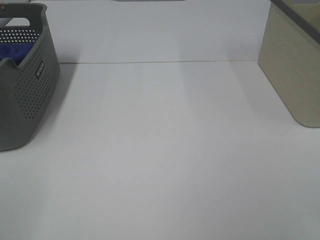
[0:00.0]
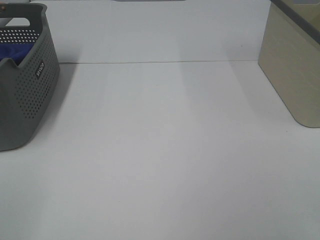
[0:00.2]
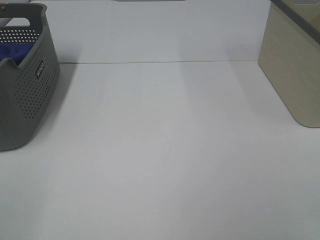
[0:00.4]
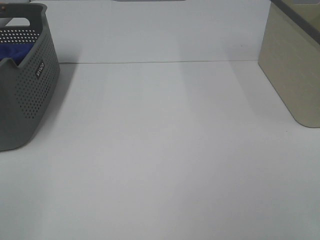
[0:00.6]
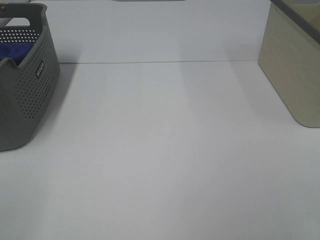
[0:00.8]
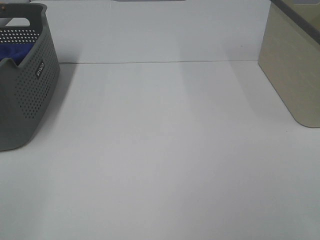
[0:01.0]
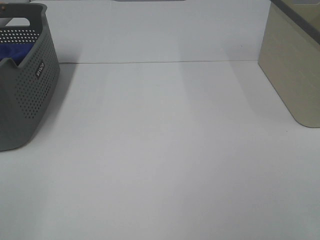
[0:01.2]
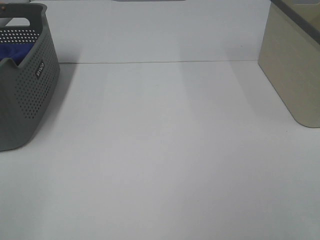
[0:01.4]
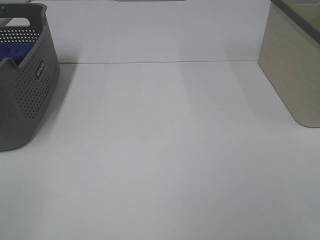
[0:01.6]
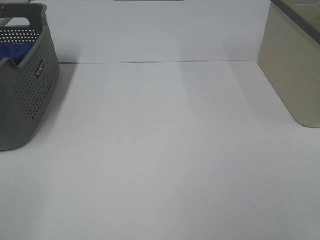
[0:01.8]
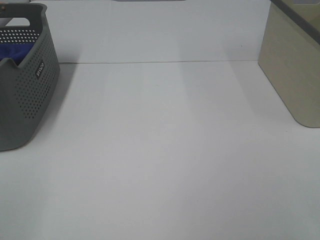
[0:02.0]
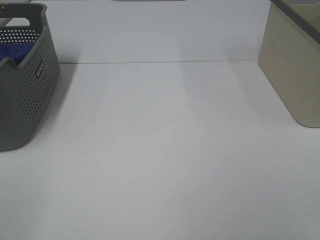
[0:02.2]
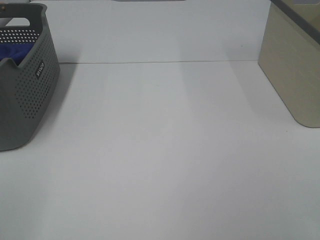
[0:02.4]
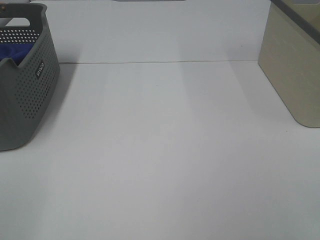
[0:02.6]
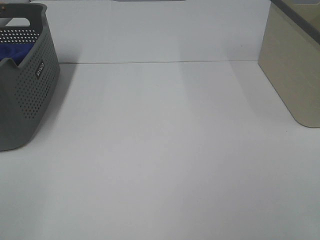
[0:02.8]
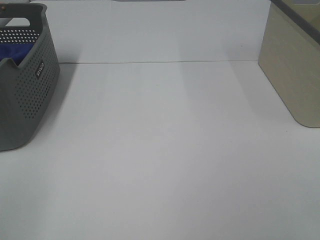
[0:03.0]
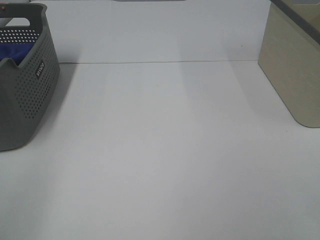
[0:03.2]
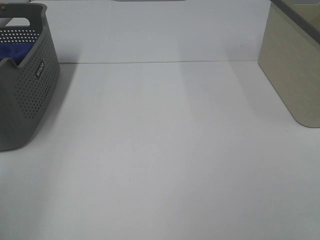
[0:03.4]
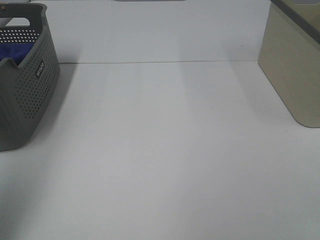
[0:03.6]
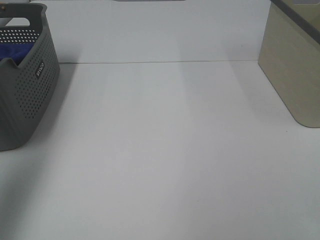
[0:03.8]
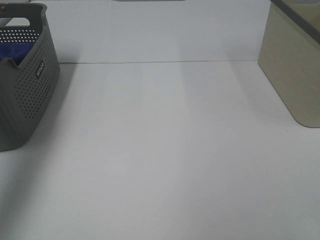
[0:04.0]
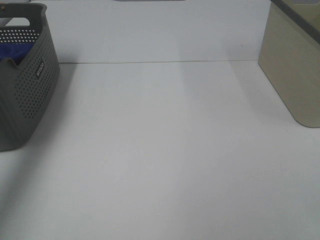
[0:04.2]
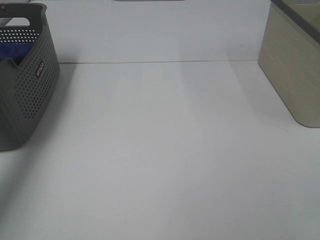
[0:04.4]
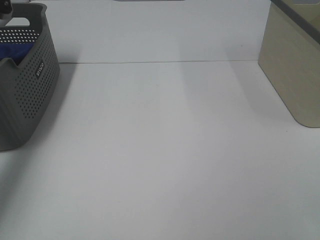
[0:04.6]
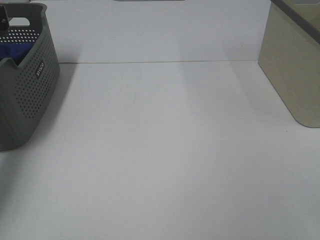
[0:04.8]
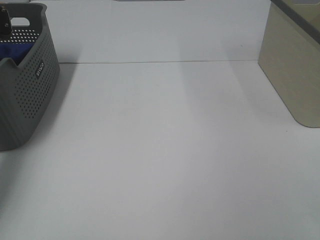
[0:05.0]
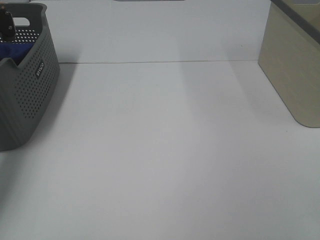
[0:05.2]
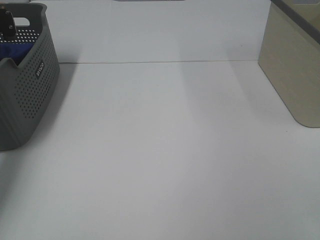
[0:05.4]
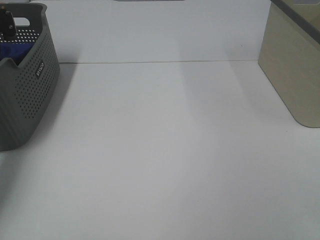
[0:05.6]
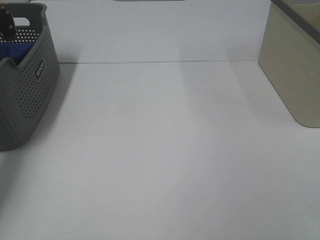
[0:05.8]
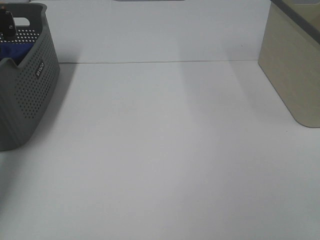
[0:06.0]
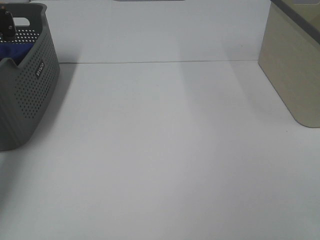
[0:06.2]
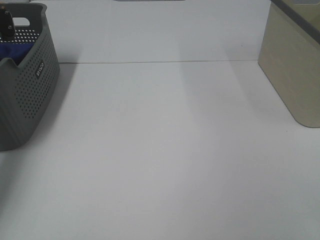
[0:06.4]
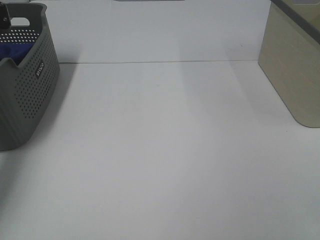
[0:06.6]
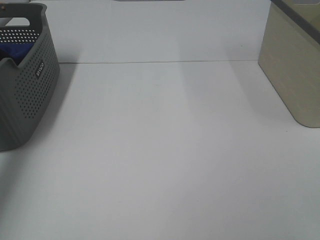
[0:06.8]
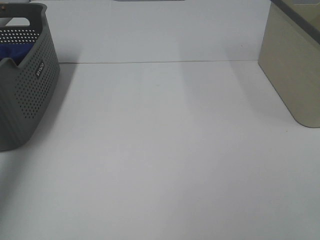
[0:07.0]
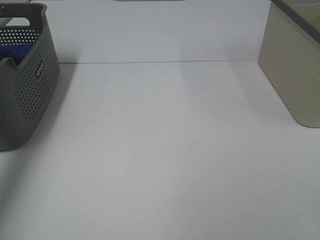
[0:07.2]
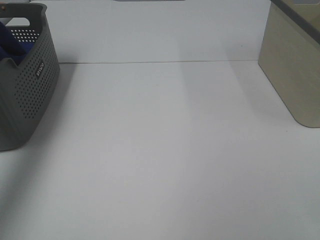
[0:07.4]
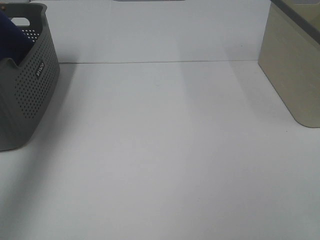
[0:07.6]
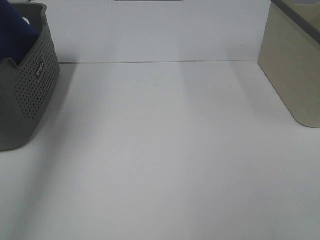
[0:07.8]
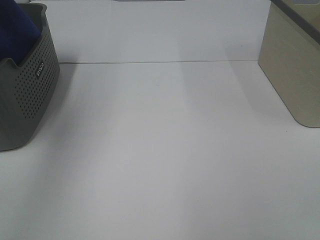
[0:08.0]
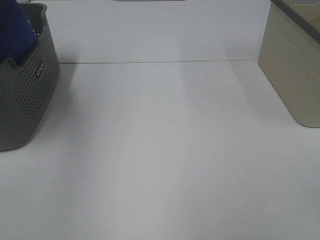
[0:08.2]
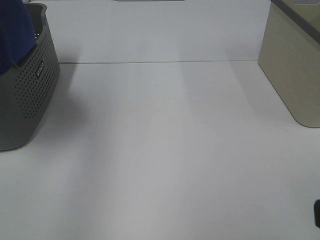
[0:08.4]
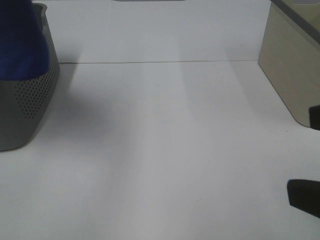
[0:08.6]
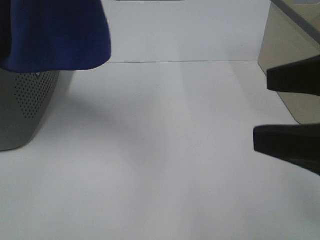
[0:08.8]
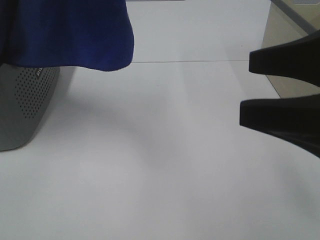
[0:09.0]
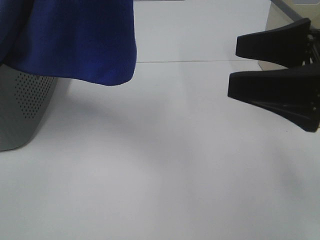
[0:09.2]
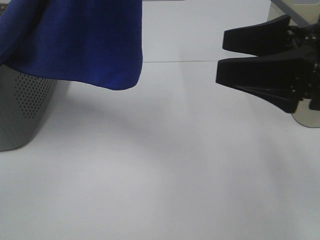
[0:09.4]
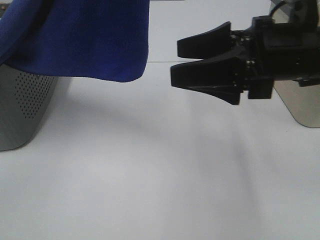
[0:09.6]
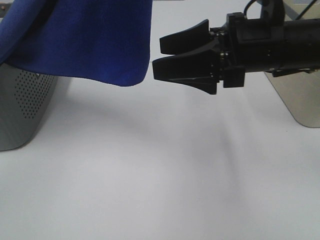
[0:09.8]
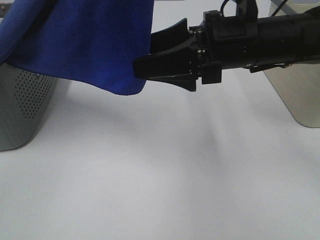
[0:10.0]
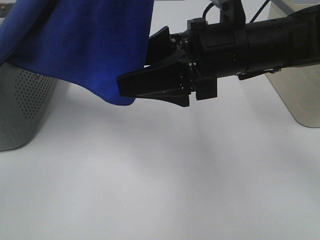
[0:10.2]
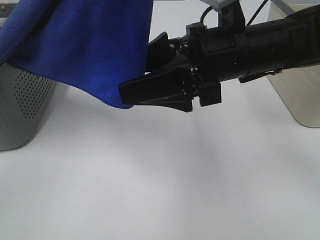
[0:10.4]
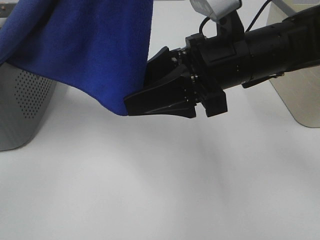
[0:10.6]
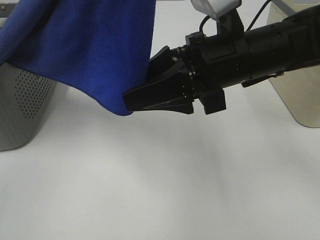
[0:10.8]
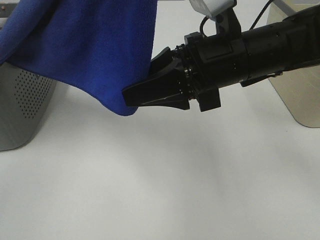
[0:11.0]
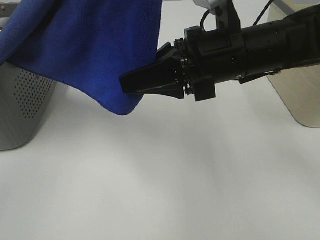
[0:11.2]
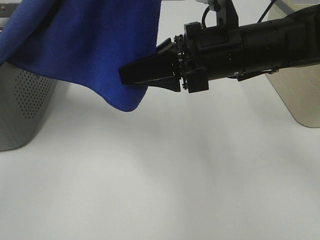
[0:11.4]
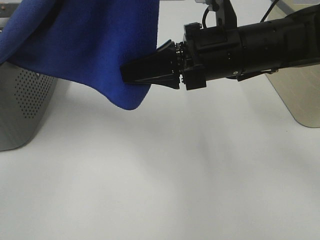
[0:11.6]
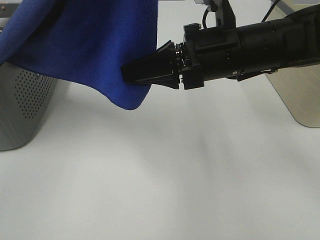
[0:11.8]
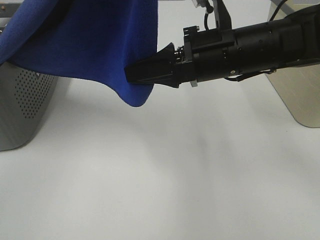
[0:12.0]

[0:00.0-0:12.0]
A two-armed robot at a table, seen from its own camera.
Task of the whole recording: Remove the towel and place it.
0:00.0 to 0:01.6: The two grippers keep their place.
0:03.0 to 0:04.4: The left gripper travels forward by about 40 cm.
0:04.4 to 0:06.0: The left gripper is displaced downward by about 10 cm, and closes up.
0:06.0 to 0:07.6: The left gripper travels upward and backward by approximately 30 cm.
0:07.6 to 0:09.0: The right gripper goes about 15 cm forward; the left gripper shifts roughly 25 cm to the right and backward.
0:09.0 to 0:10.4: The left gripper is displaced to the right by about 5 cm; the right gripper moves forward and to the left, about 15 cm.
0:10.4 to 0:12.0: The right gripper closes its fingers.

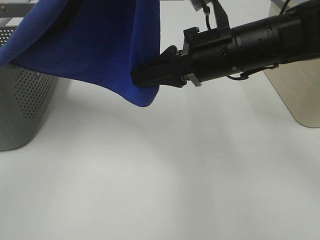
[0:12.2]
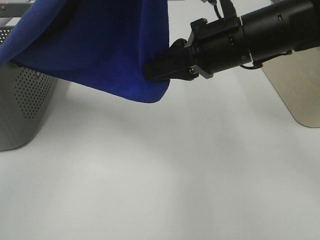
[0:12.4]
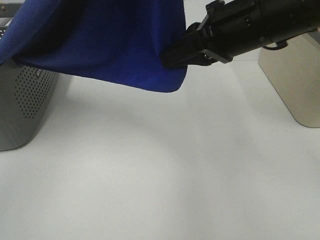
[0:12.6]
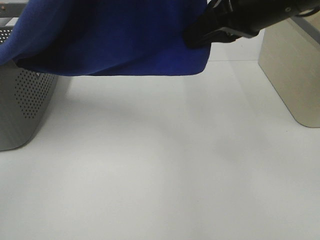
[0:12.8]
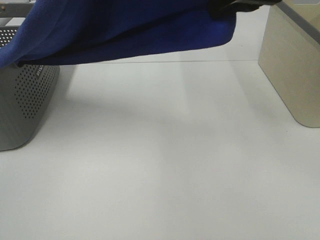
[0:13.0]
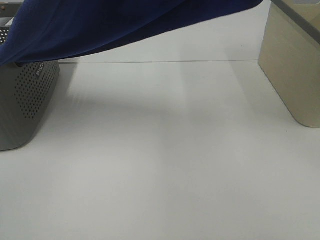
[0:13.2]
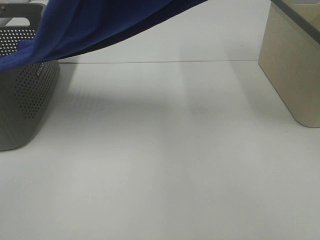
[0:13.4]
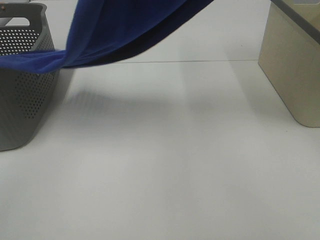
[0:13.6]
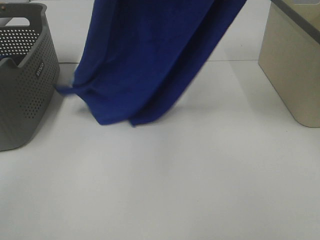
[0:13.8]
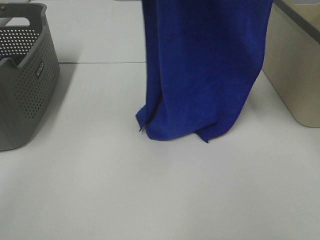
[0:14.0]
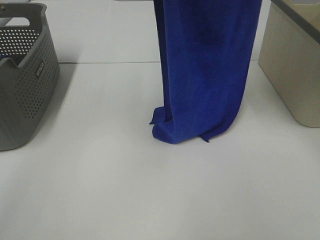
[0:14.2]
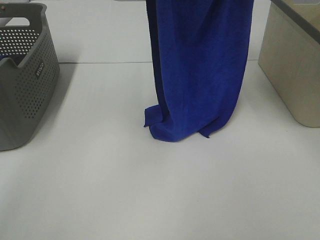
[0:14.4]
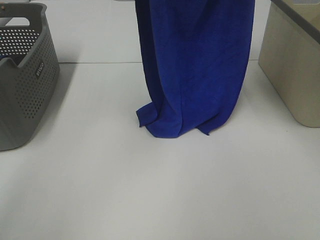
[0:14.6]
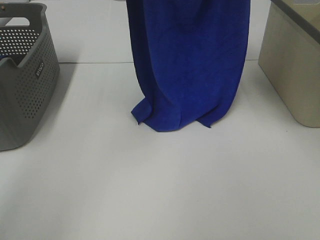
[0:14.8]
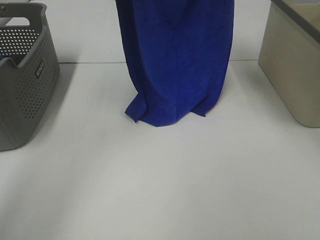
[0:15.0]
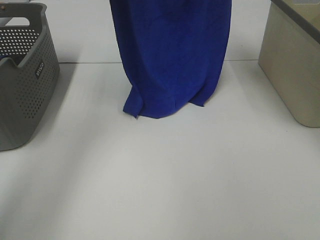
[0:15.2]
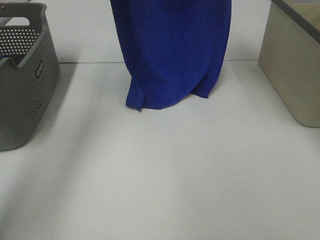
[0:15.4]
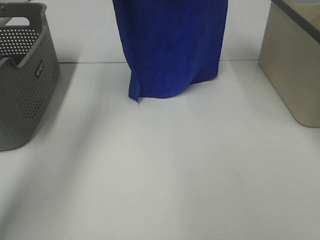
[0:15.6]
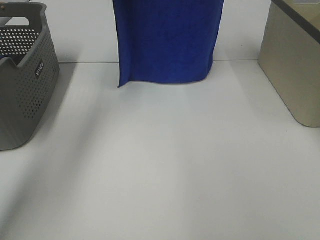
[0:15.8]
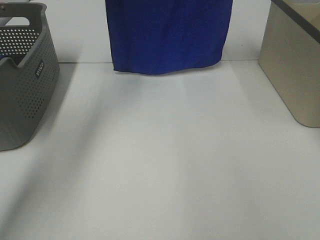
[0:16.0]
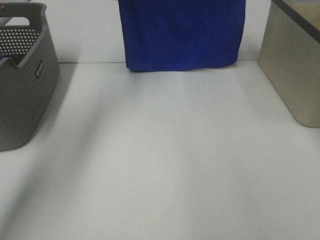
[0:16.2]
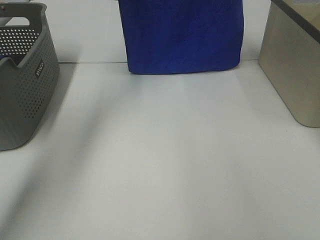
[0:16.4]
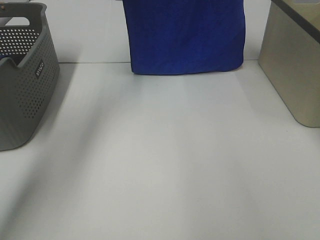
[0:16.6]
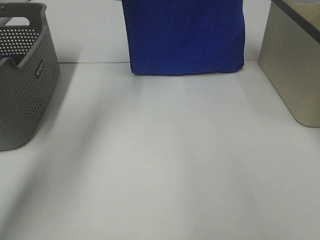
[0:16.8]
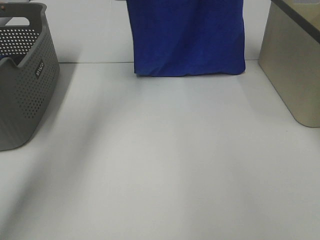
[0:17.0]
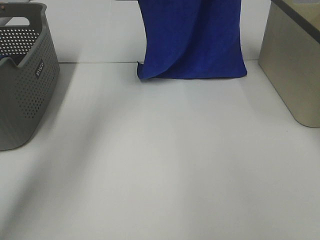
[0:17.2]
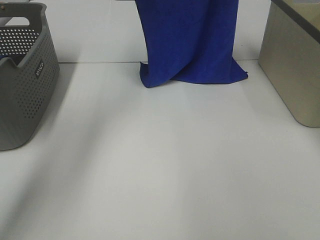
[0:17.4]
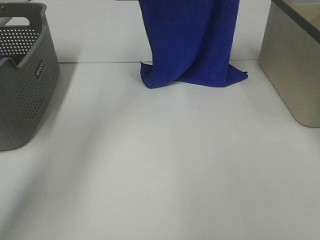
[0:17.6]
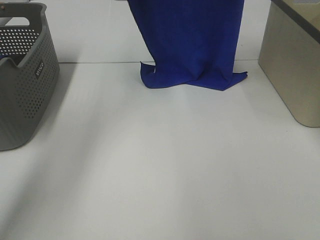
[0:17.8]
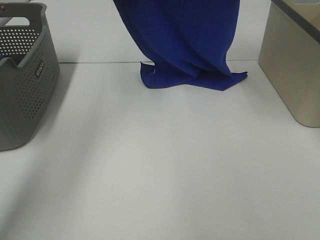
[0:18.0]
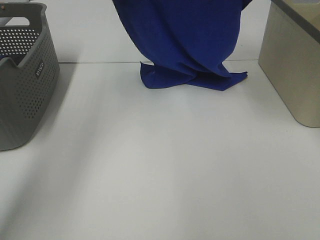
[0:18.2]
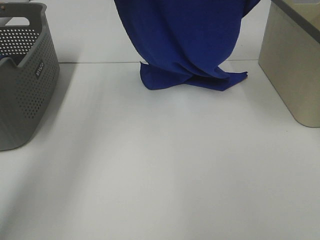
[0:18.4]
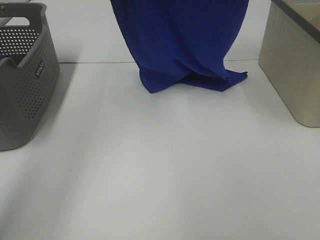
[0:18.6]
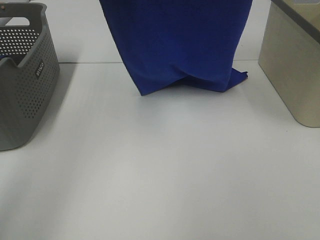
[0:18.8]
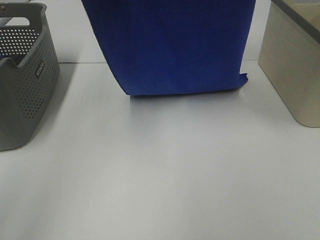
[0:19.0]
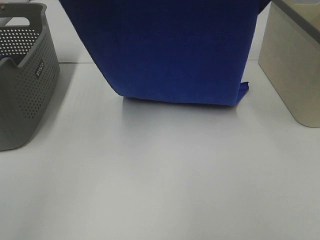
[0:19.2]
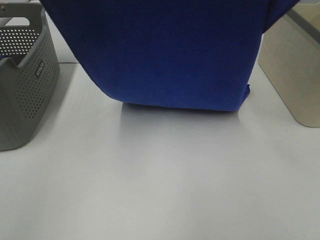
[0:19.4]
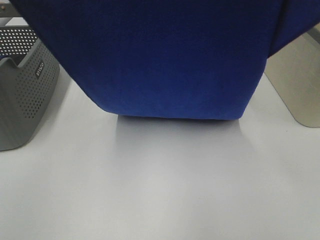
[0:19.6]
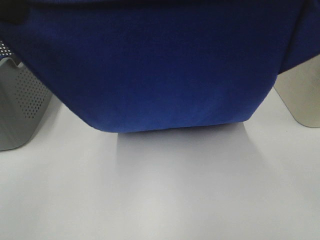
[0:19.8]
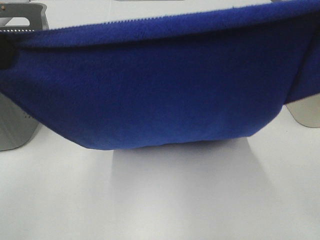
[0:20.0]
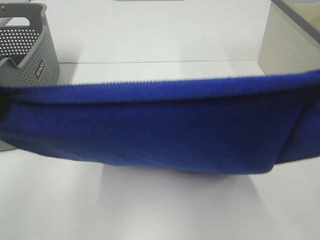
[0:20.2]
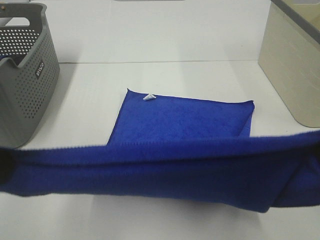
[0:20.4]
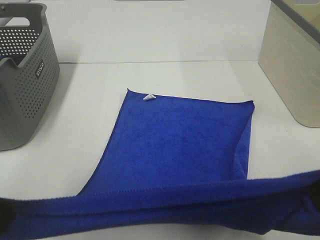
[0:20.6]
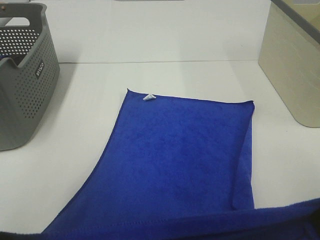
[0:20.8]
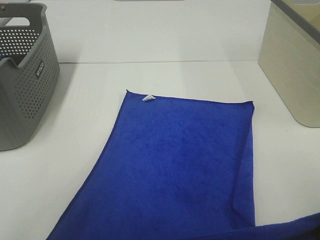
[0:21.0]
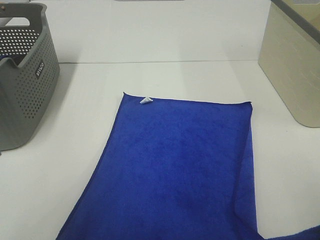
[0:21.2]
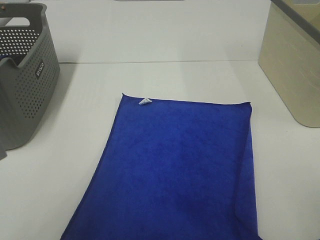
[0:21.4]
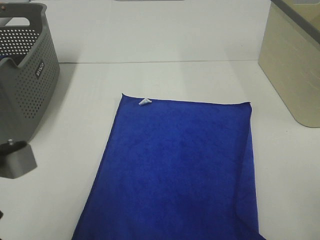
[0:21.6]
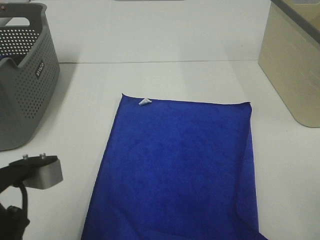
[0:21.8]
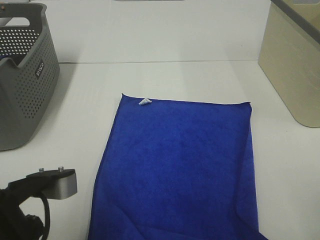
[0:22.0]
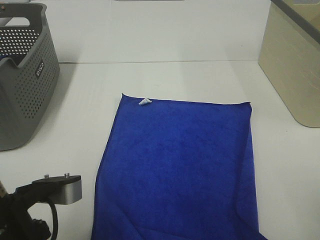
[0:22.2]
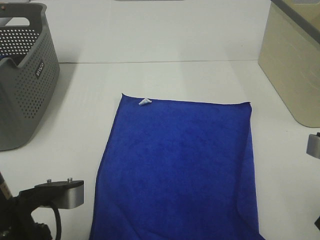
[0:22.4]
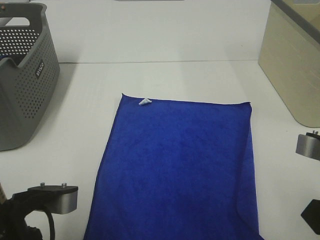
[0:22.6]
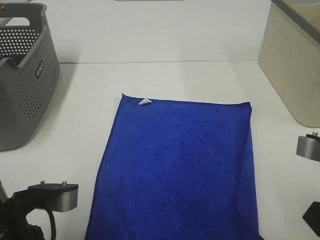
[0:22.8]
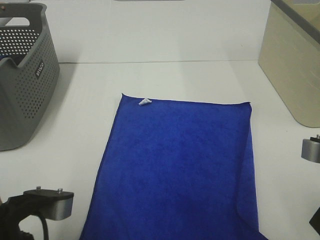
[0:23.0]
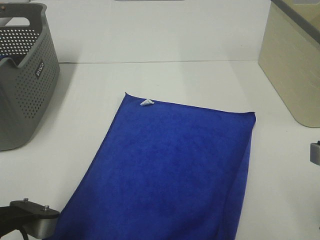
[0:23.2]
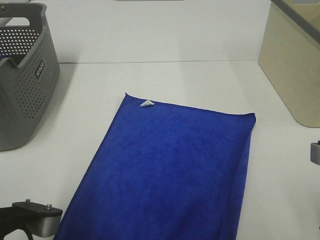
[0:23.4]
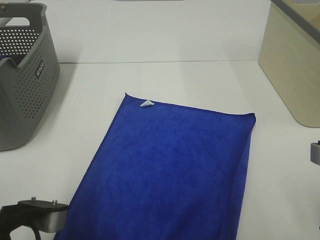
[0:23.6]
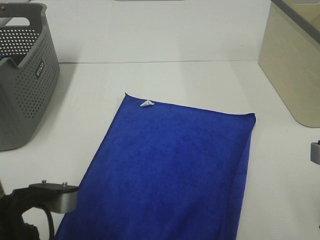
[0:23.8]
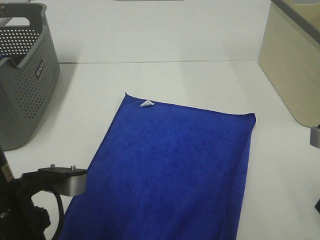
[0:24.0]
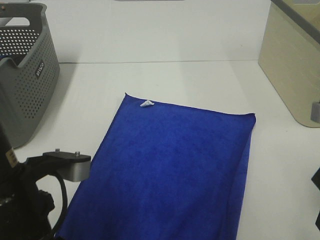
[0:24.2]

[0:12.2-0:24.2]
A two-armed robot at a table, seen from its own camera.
Task of the whole recording: Remove the towel and place it.
Step, 0:13.0 to 0:18.6: Left hand: spread the blue towel flat on the table.
Step, 0:13.0 to 0:18.6: Right hand: spread the blue towel flat on the table.
0:12.2 to 0:13.8: The left gripper moves forward, roughly 10 cm, while the right gripper travels upward by approximately 20 cm.
0:13.8 to 0:15.2: The left gripper is displaced forward, downward and to the left by roughly 20 cm. The right gripper travels forward by about 10 cm.
0:15.2 to 0:16.6: The left gripper shifts approximately 10 cm forward; the right gripper shifts by roughly 5 cm.
0:16.6 to 0:18.2: The two grippers go approximately 10 cm backward.
0:18.2 to 0:19.8: The grippers both shift backward by some 25 cm.
0:19.8 to 0:21.2: The two grippers go some 20 cm downward and backward.
0:21.2 to 0:22.6: The left gripper heads downward, covering about 10 cm.
0:22.6 to 0:24.2: The right gripper opens. Meanwhile the left gripper opens.
